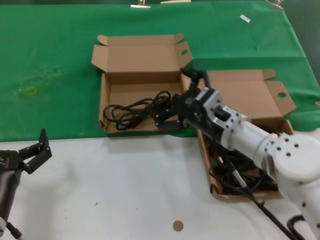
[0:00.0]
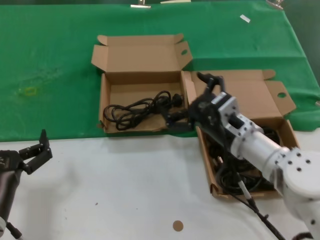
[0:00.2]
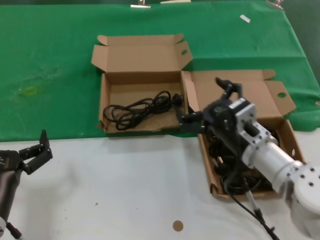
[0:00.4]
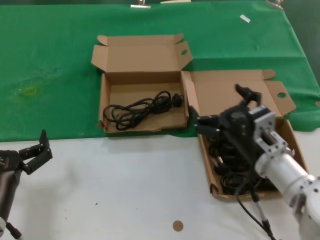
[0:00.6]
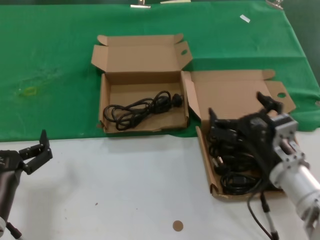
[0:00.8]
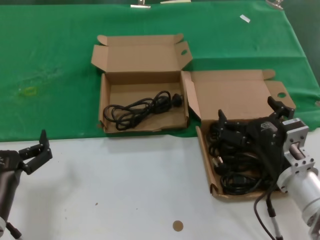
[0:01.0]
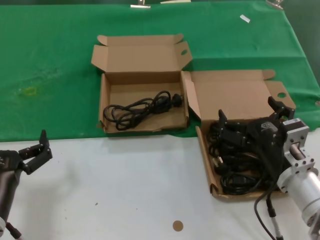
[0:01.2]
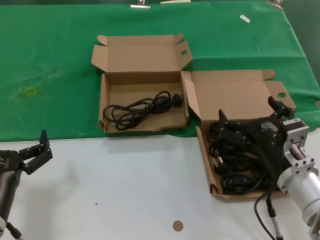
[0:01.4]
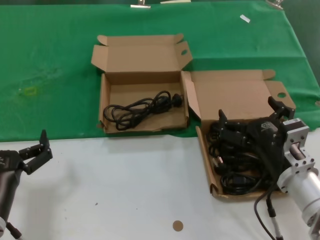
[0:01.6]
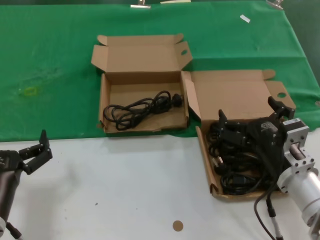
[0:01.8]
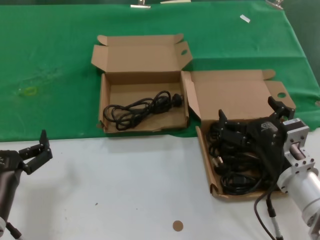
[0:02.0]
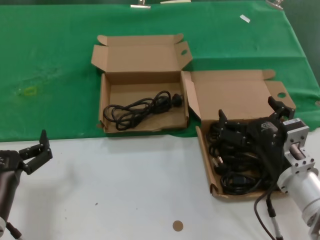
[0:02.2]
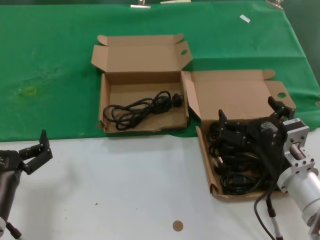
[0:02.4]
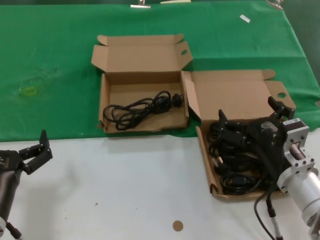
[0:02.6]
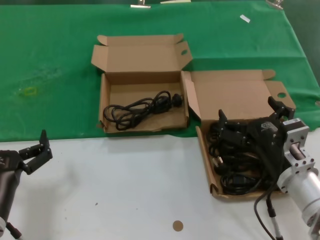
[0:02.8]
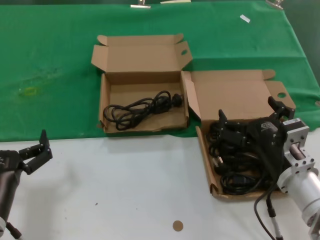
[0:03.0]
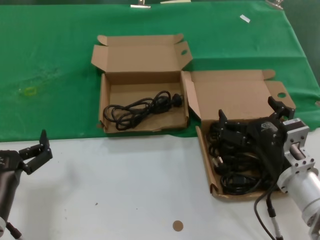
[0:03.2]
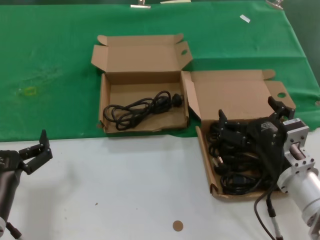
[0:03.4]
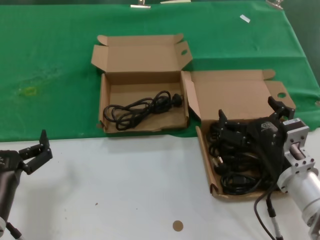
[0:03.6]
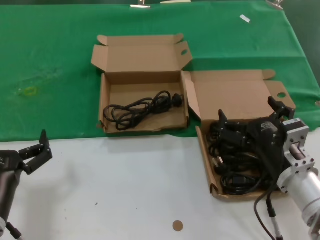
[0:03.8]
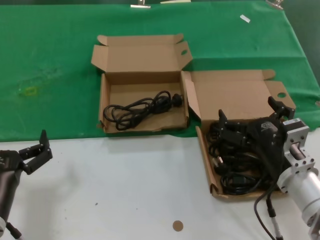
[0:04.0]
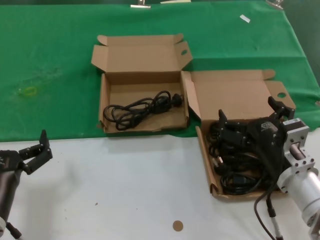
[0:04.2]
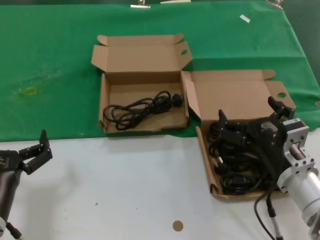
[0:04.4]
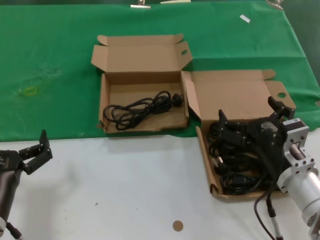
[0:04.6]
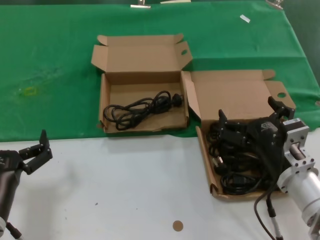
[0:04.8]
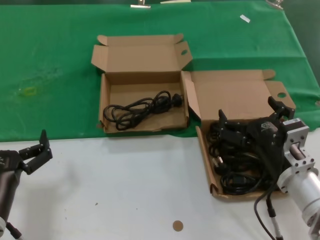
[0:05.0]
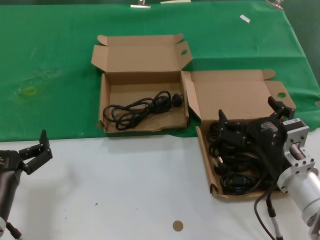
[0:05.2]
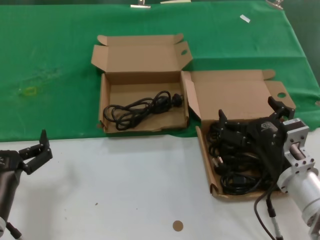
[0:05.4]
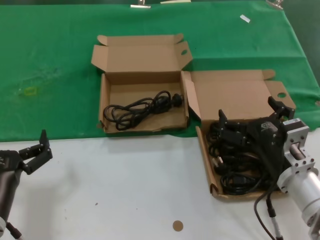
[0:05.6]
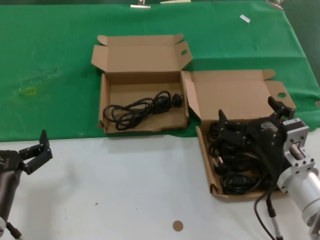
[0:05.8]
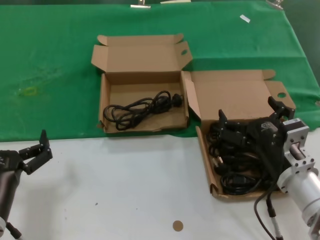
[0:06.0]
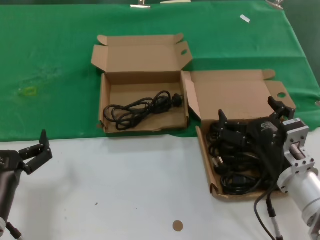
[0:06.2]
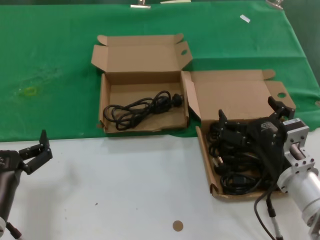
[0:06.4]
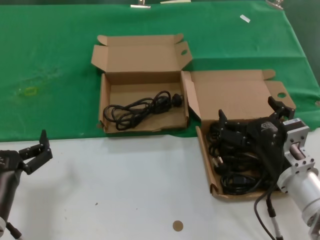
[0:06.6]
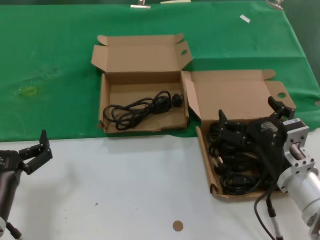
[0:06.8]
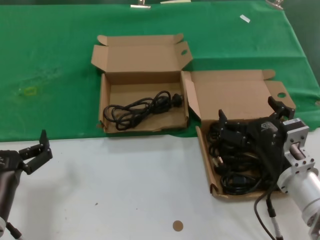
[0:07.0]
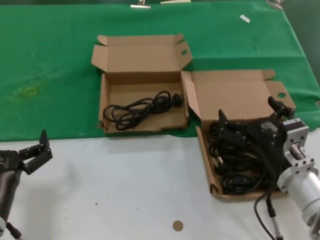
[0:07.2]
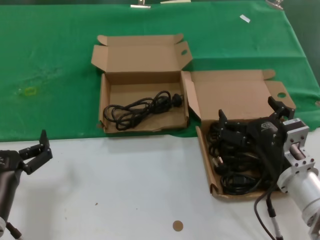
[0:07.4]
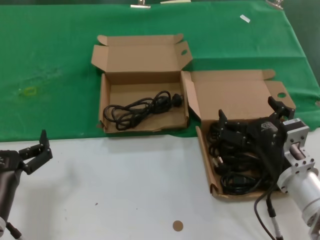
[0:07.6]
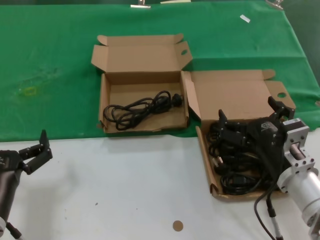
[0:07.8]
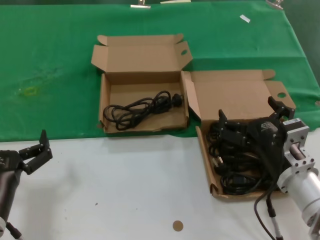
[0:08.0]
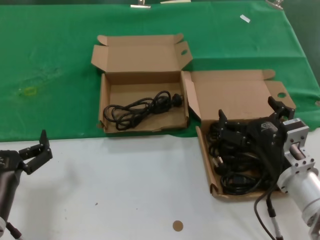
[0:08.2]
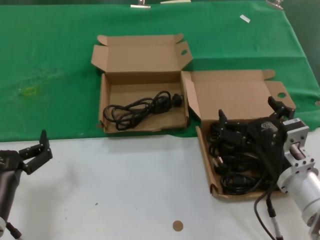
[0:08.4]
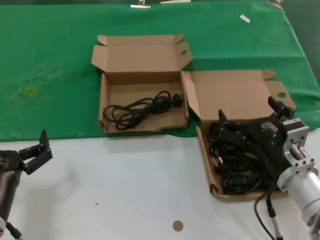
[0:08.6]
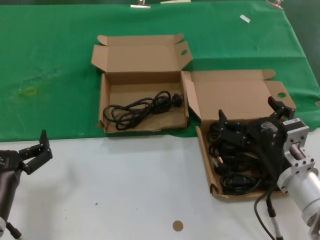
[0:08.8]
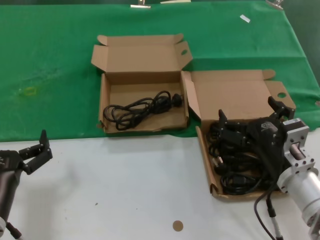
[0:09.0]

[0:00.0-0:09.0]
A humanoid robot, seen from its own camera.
Task of the whole recording: take the parts from the box containing them and put them into an empty box.
0:00.0 to 0:01.6: The right hand goes some 15 cm backward and to the right.
0:01.6 to 0:09.0: Both hands stay put.

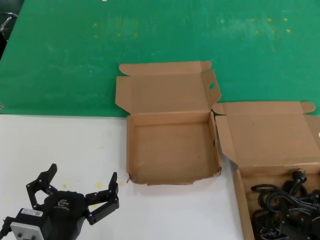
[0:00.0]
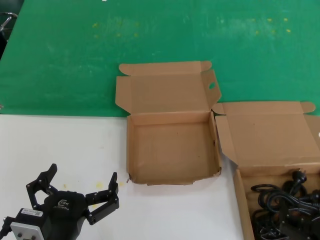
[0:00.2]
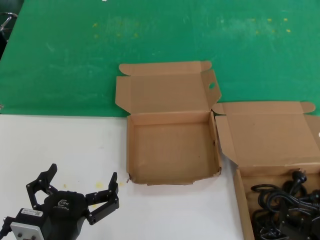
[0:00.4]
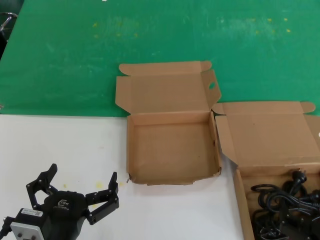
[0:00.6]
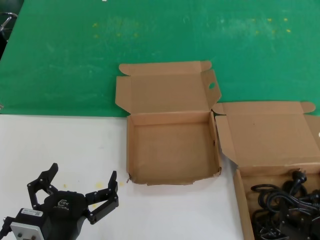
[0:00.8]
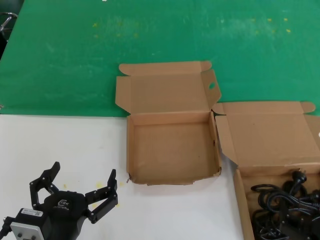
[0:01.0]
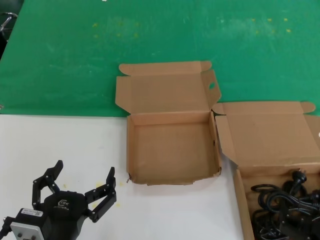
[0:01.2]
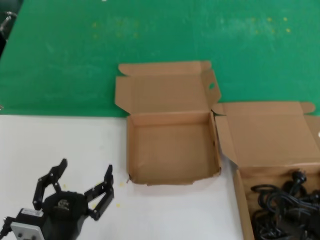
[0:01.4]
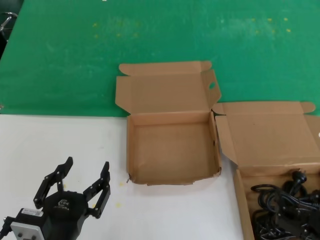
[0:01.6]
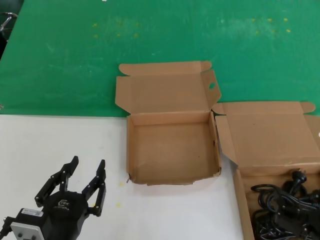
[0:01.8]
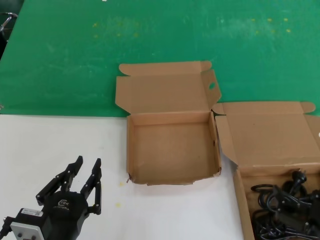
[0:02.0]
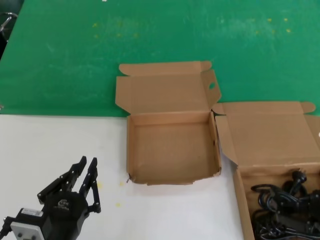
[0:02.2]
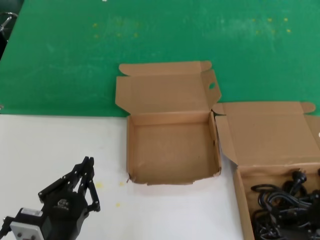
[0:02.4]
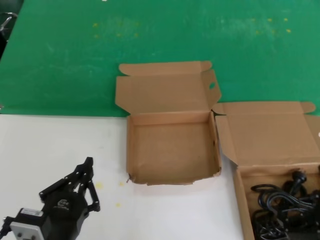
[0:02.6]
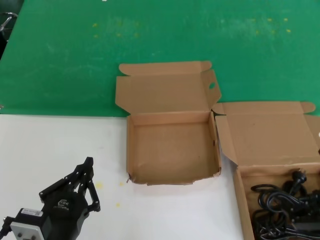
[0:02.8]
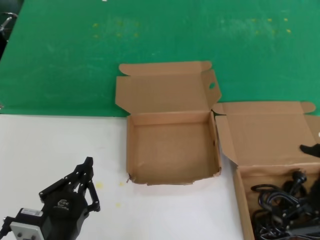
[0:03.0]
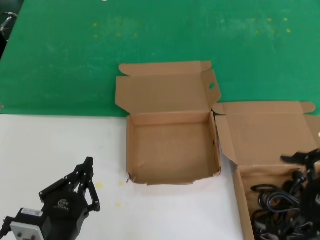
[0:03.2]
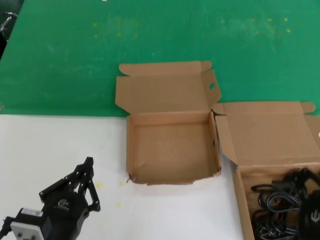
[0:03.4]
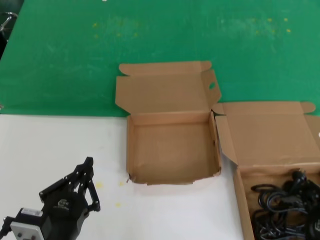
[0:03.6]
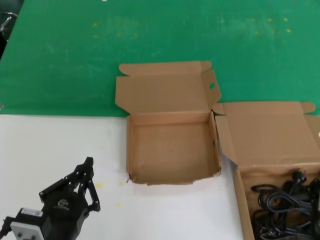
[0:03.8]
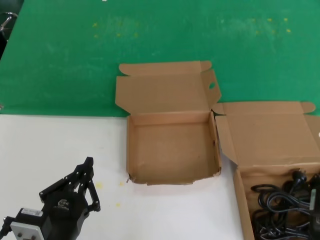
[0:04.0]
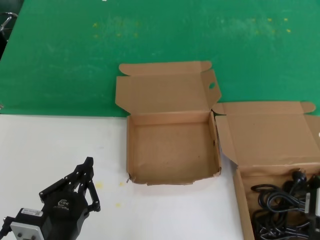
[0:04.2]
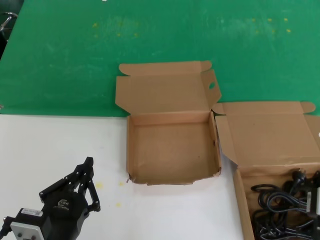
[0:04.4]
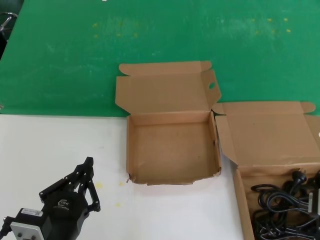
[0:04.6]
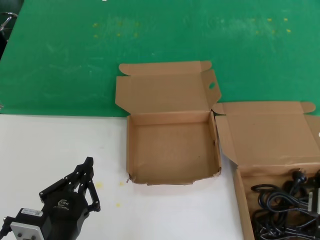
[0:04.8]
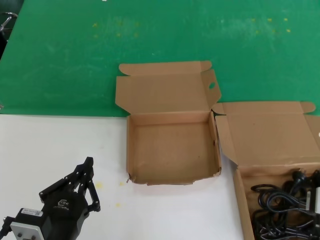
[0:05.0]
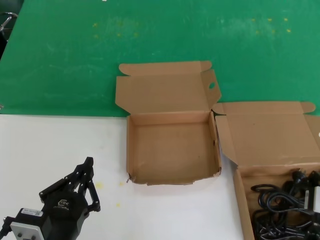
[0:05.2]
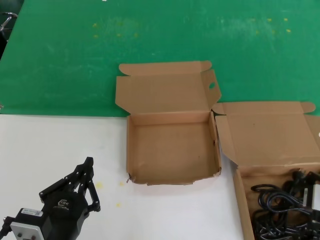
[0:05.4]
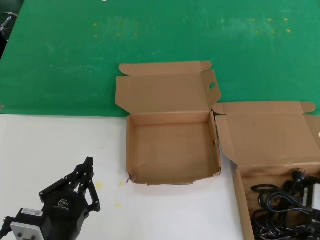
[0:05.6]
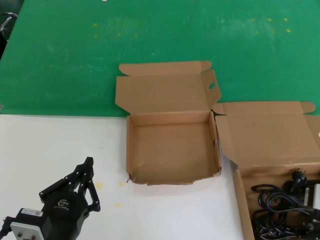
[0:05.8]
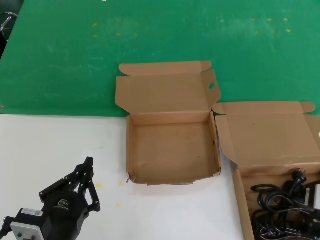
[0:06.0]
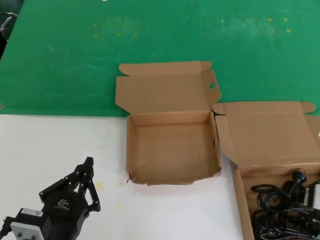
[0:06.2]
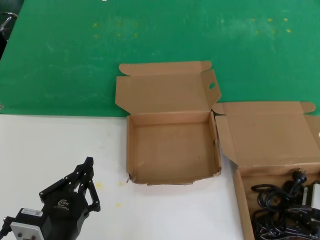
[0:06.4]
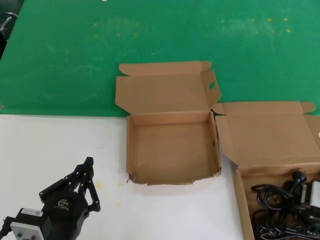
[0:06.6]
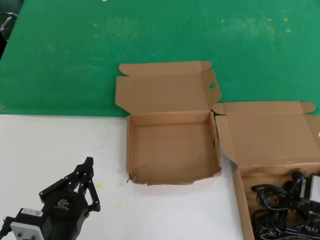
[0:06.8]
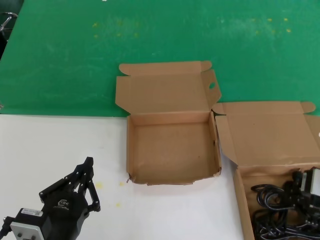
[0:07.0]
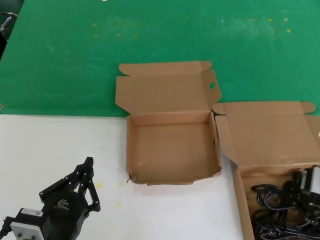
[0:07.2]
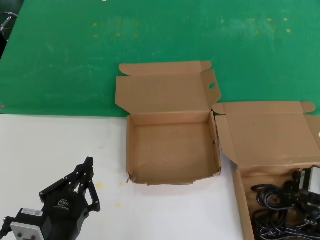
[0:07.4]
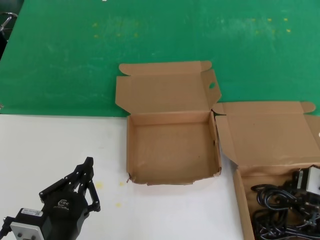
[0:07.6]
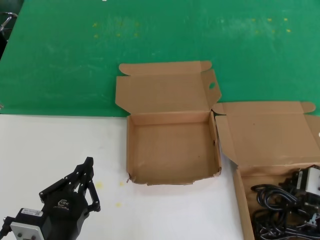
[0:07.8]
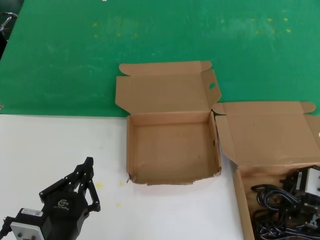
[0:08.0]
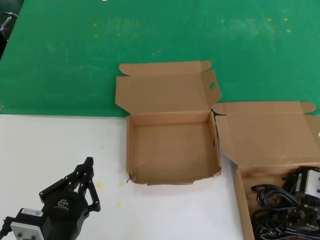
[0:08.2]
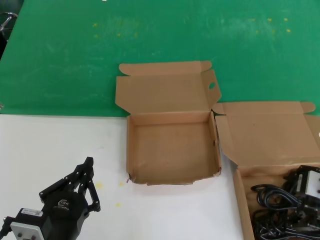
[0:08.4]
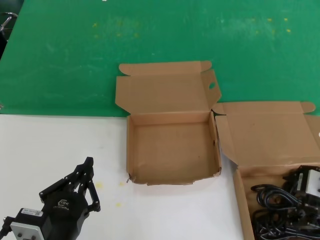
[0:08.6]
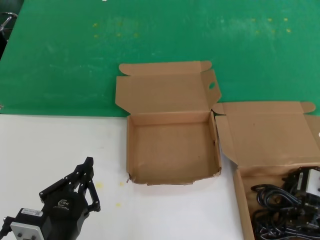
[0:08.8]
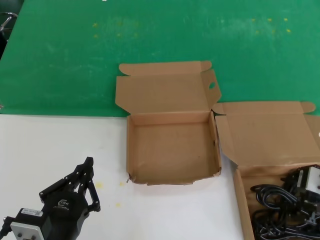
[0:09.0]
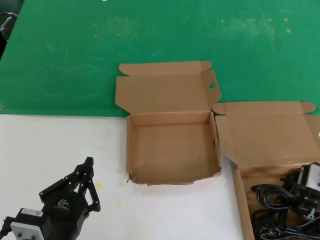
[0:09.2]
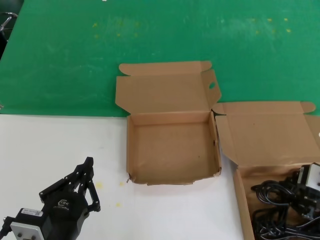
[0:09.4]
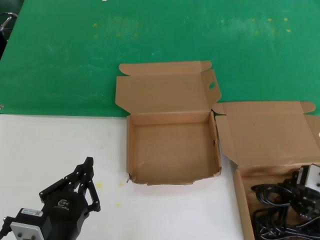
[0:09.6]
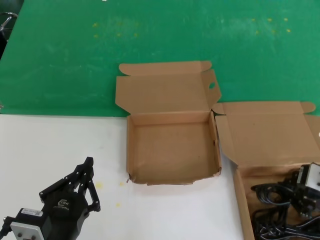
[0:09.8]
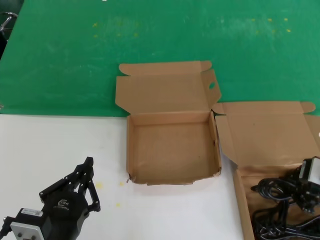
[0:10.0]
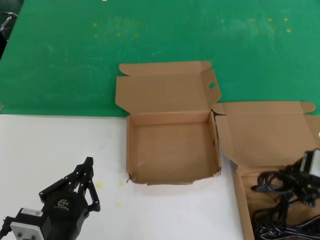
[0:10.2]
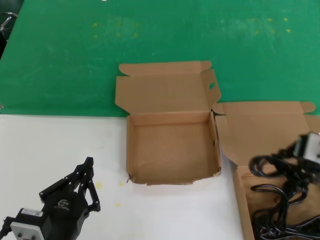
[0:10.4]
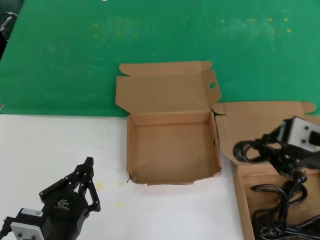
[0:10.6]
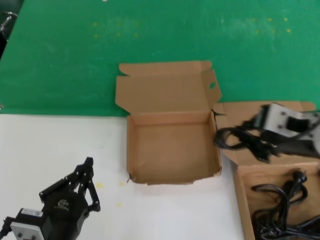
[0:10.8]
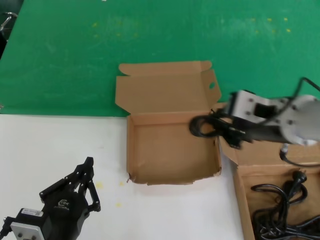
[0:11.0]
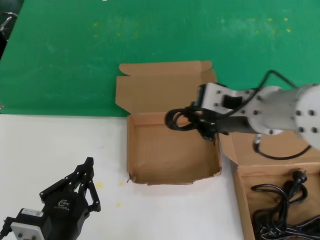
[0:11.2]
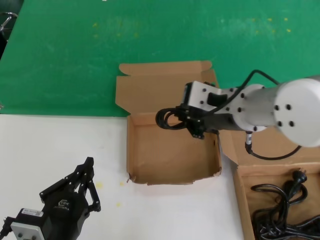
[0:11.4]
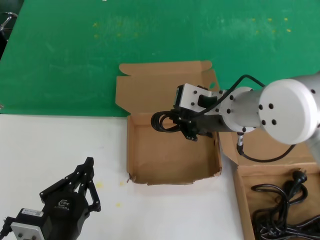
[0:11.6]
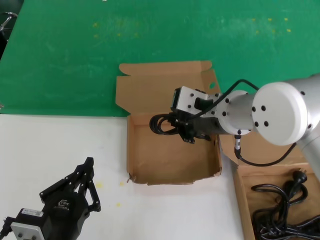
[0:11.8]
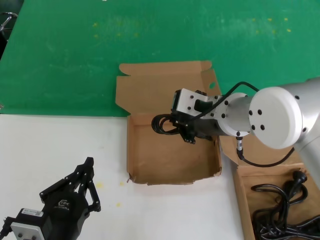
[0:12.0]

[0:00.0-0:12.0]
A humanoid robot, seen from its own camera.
Task of the whole recording: take the parts from the box containing them and put them into an empty box.
Step, 0:00.0 to 0:09.8: Grasp the data cable.
0:00.0 to 0:01.6: The hands make only small movements.
0:01.6 to 0:03.0: The right hand is displaced upward and to the right by some 15 cm.
0:03.0 to 0:04.4: The right hand travels to the left by some 5 cm.
0:04.4 to 0:06.0: The right hand moves approximately 5 cm.
0:06.0 to 0:07.6: The hands stay close to where they were, moving slightly.
0:09.0 to 0:10.4: The right hand is displaced upward by approximately 5 cm.
0:10.4 to 0:12.0: The right hand goes some 20 cm to the left and forward.

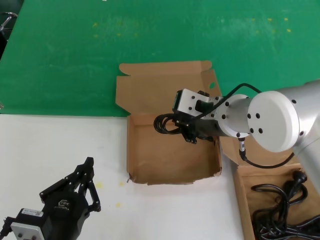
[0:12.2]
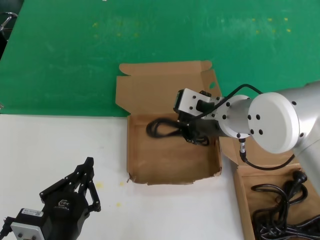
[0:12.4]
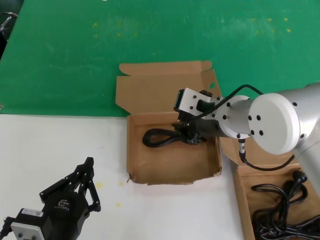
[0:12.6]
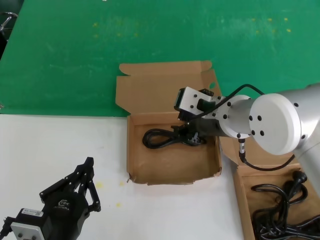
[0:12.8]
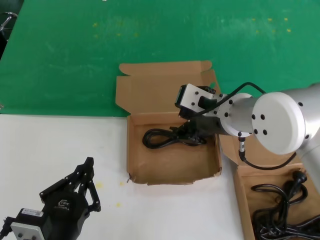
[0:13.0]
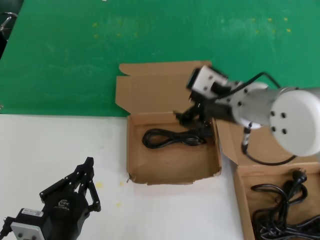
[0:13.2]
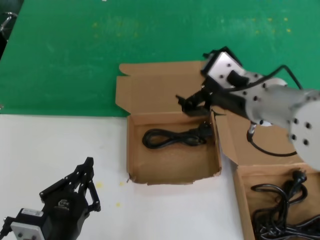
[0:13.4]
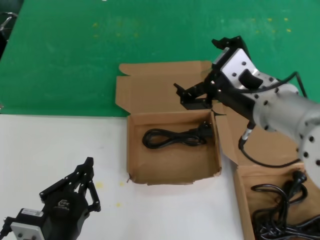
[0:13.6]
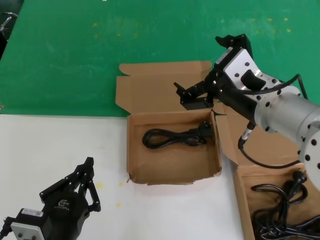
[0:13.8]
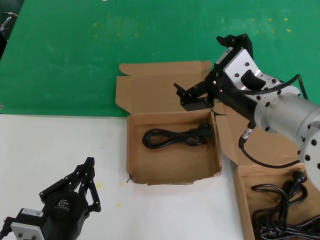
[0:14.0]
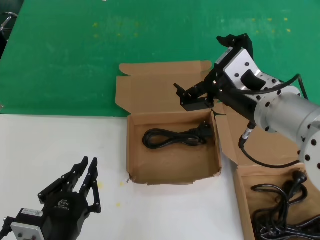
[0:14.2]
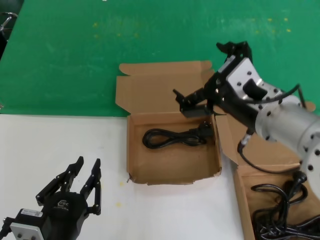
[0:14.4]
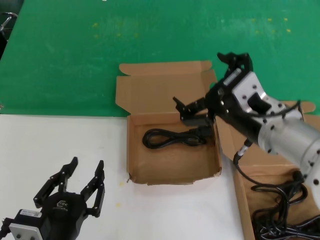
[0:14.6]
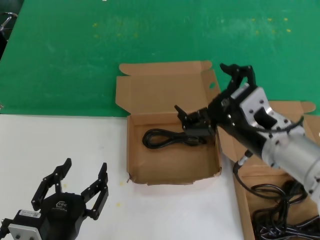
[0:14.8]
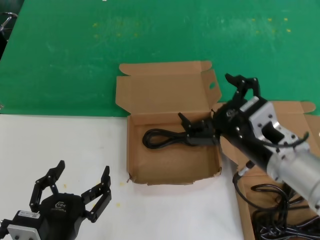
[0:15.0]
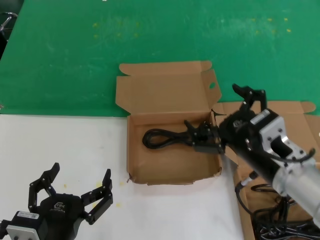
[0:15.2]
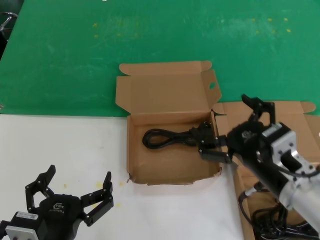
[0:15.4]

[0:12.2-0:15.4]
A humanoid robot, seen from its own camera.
Task of the whole recording: take the parts from the box containing them and put them into an empty box.
0:12.2 to 0:13.8: The right hand heads backward, covering approximately 5 cm.
0:13.8 to 0:15.4: The right hand shifts some 15 cm downward.
